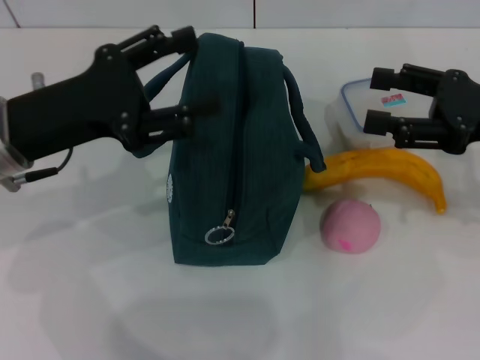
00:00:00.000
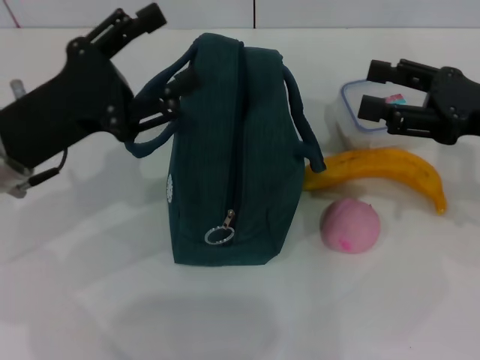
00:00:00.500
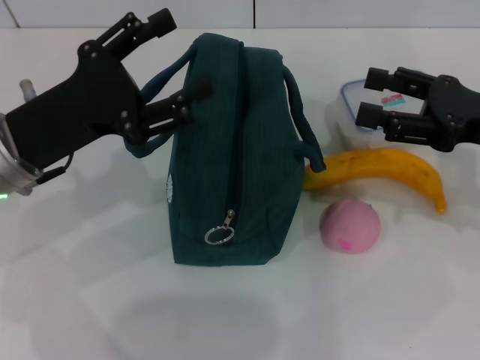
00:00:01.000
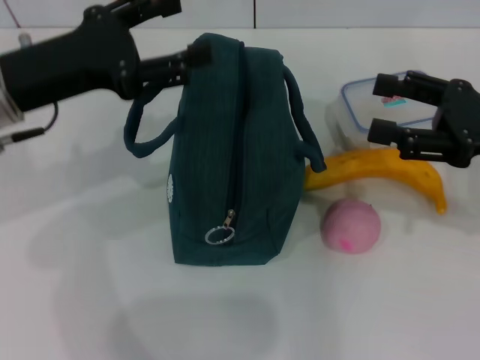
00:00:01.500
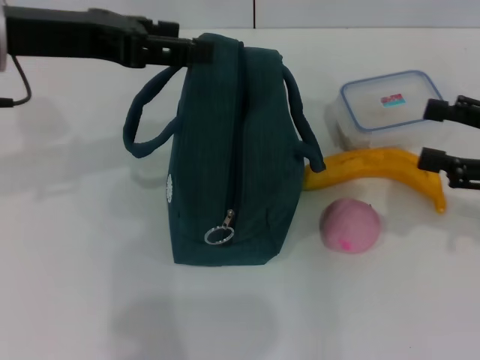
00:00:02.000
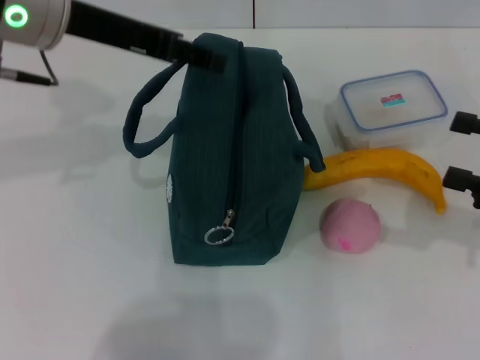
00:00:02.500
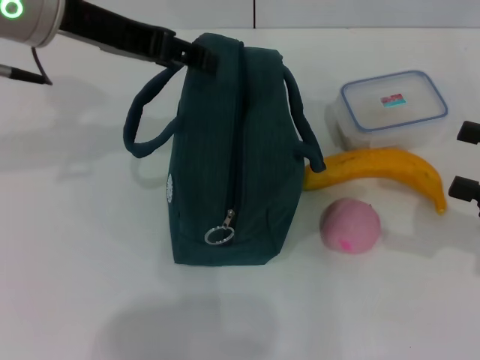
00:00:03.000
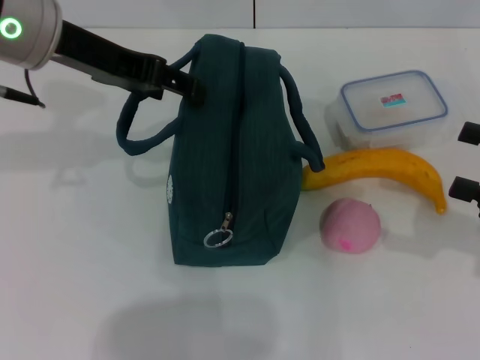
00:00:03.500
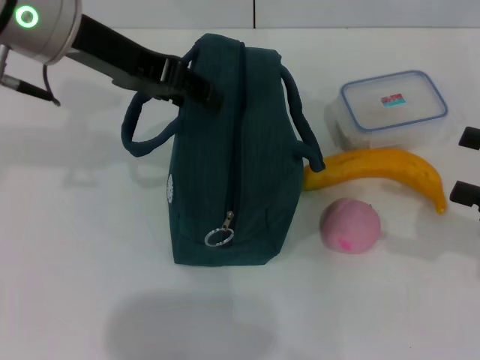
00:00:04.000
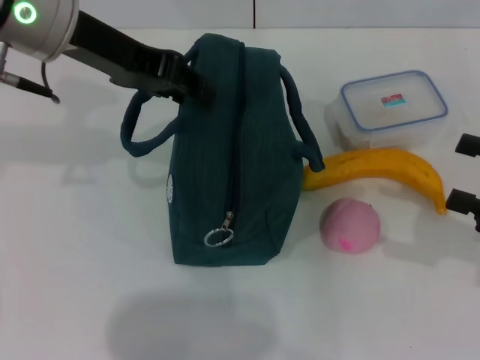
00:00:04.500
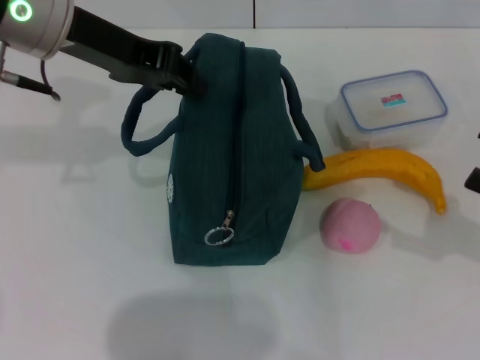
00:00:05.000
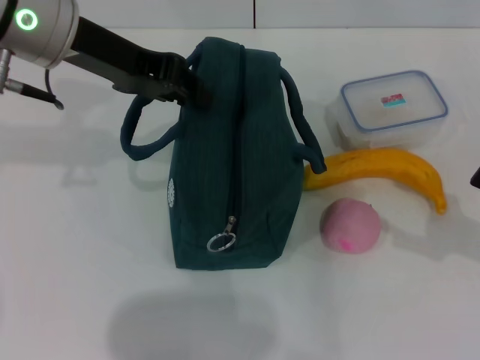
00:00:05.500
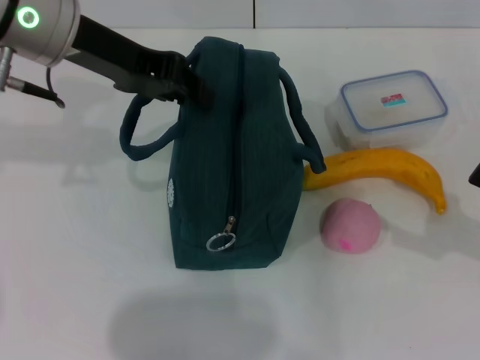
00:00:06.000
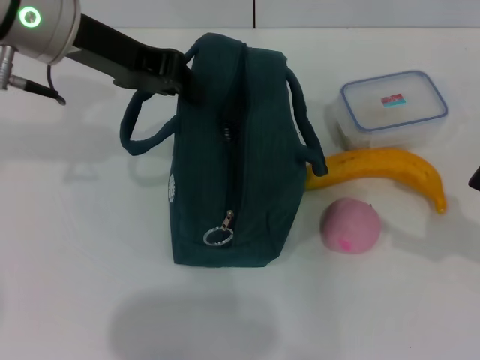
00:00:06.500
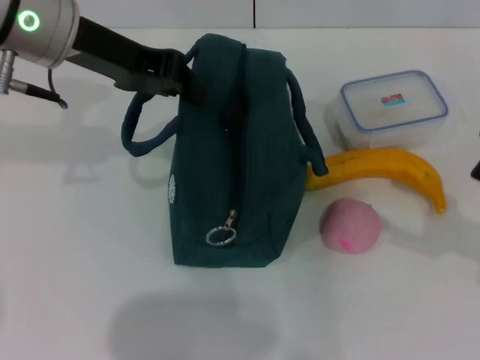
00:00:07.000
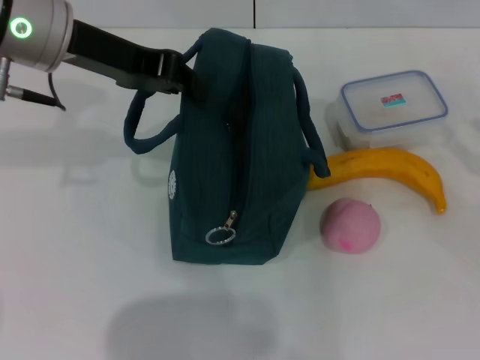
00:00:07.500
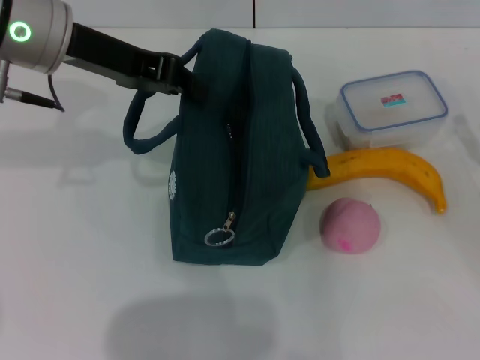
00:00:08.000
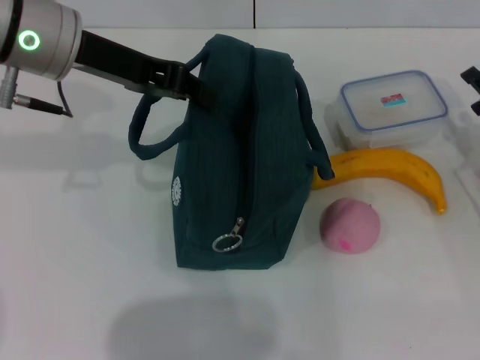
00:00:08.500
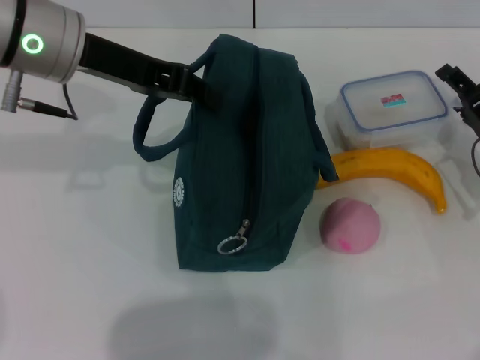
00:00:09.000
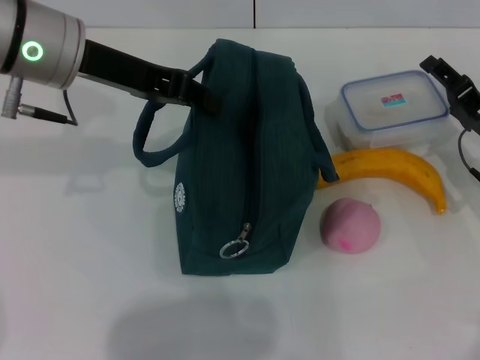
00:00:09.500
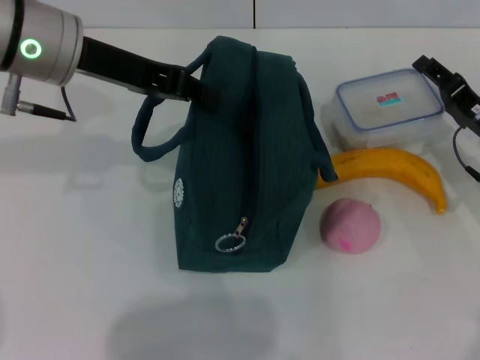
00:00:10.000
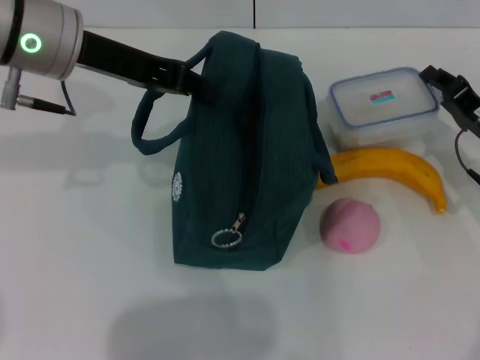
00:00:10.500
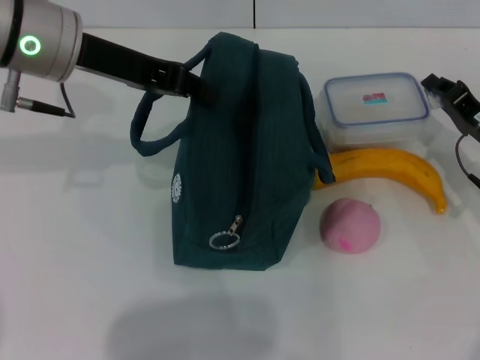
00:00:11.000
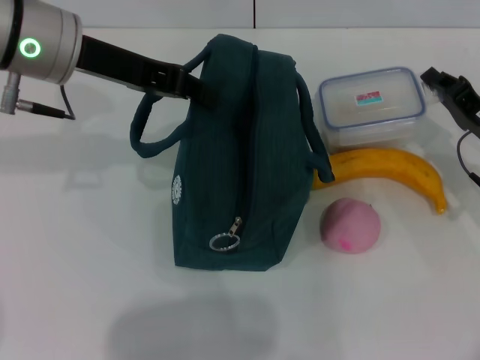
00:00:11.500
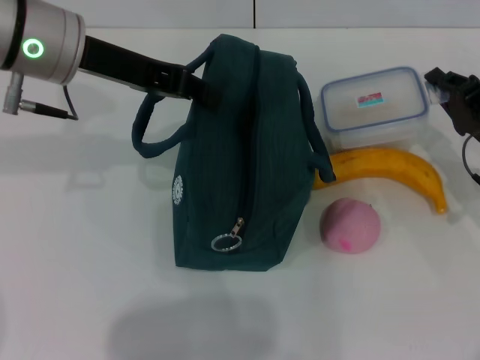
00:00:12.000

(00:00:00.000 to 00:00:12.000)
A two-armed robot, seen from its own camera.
Step, 00:00:00.000 - 00:00:07.500: Hold the lunch bag with your left hand.
Step, 00:00:08.000 - 00:00:10.500: Pick up the lunch box with your right hand.
00:00:00.000 - 00:00:02.000: The left gripper is displaced upward by about 10 cm. The right gripper moves about 5 cm.
00:00:02.000 - 00:00:04.000: The left gripper moves some 5 cm.
00:00:04.000 - 00:00:06.000: The left gripper closes up.
00:00:06.000 - 00:00:08.000: The right gripper travels downward by approximately 5 cm.
00:00:08.000 - 00:00:10.000: The right gripper travels forward and to the left by approximately 10 cm.
00:00:10.000 - 00:00:12.000: The right gripper closes its fingers.

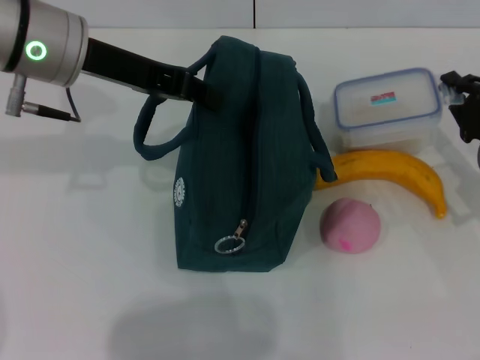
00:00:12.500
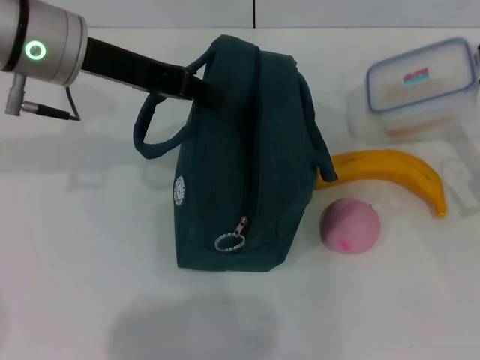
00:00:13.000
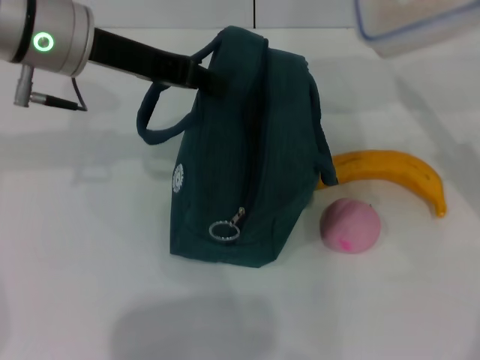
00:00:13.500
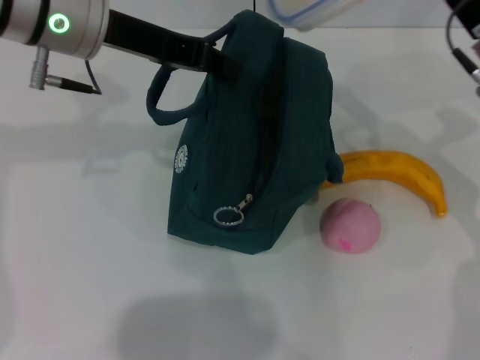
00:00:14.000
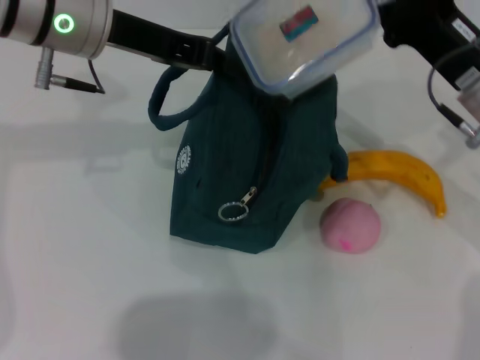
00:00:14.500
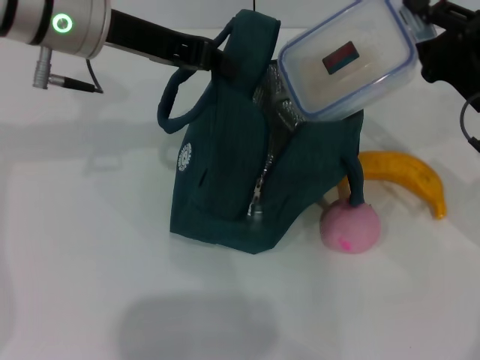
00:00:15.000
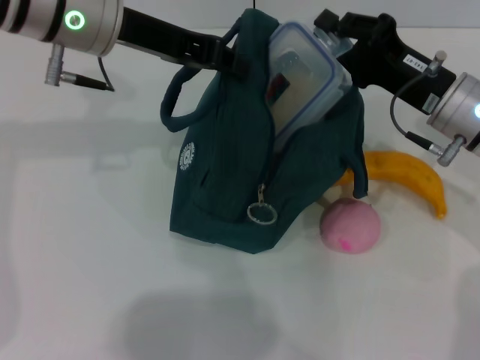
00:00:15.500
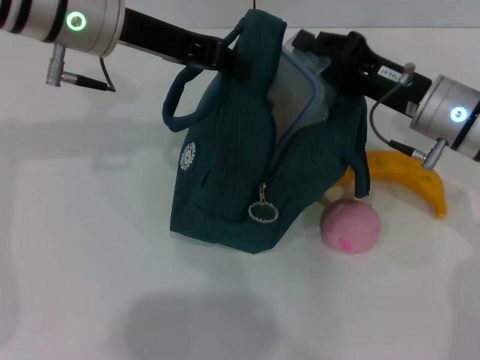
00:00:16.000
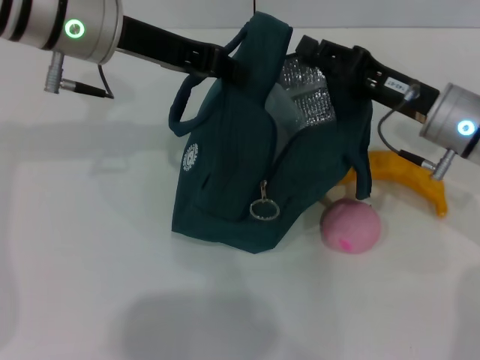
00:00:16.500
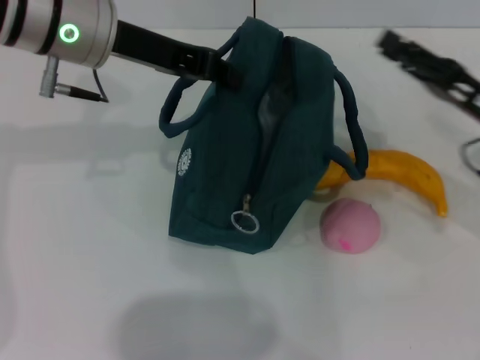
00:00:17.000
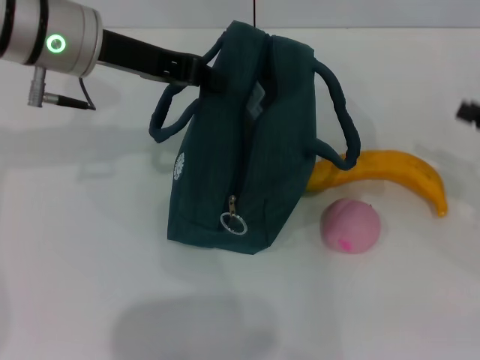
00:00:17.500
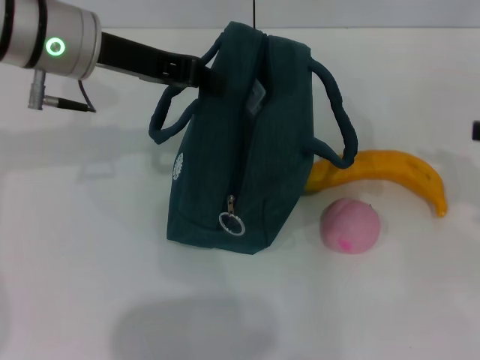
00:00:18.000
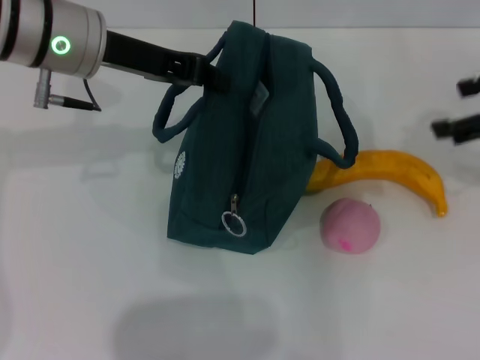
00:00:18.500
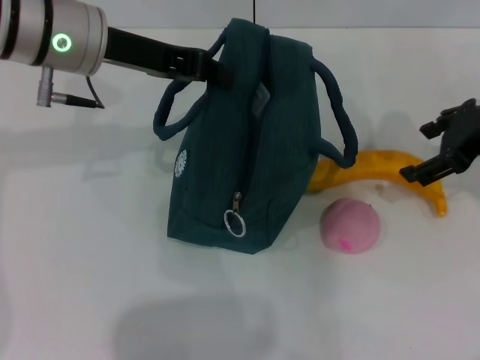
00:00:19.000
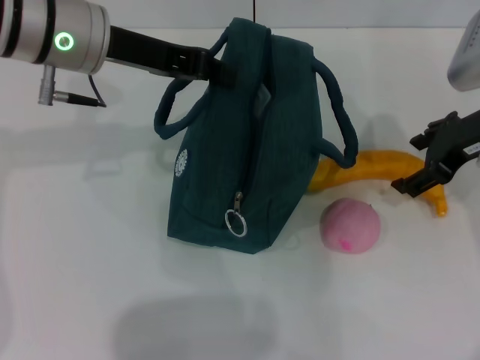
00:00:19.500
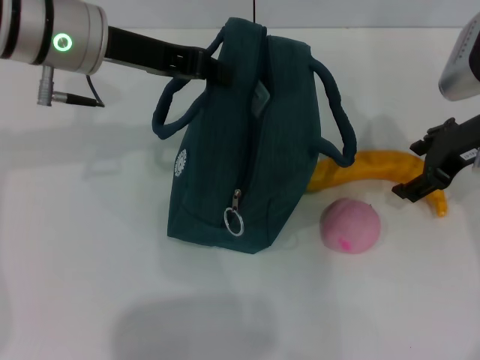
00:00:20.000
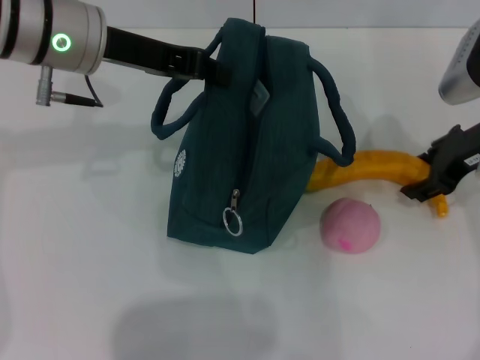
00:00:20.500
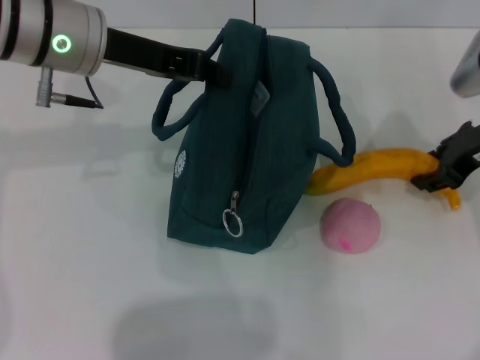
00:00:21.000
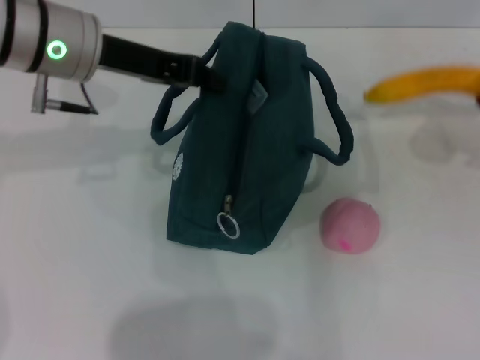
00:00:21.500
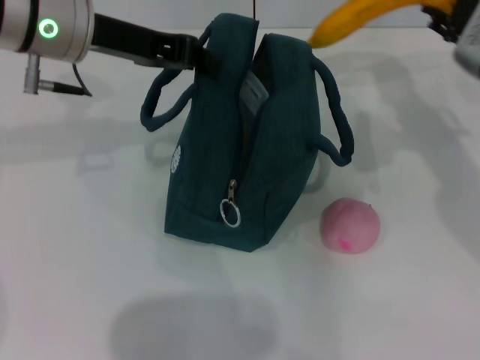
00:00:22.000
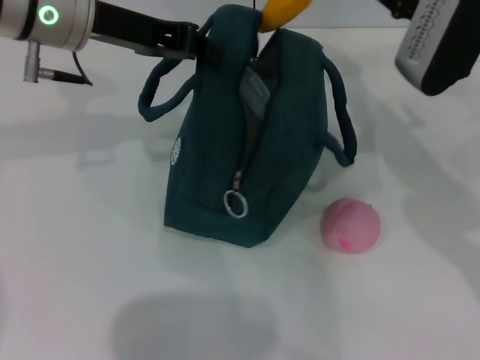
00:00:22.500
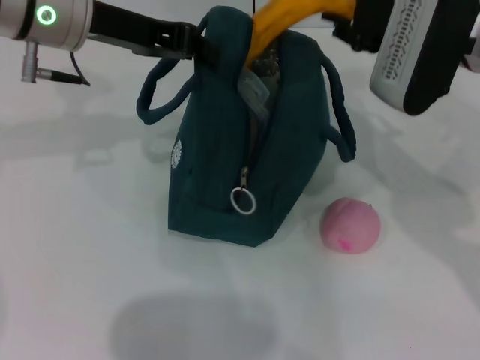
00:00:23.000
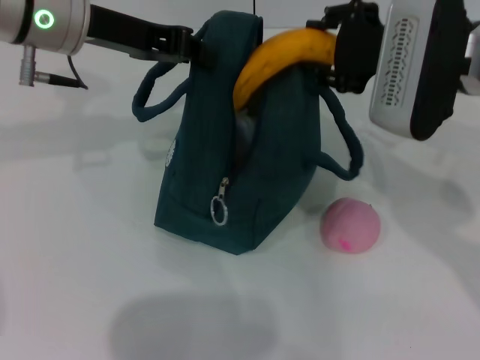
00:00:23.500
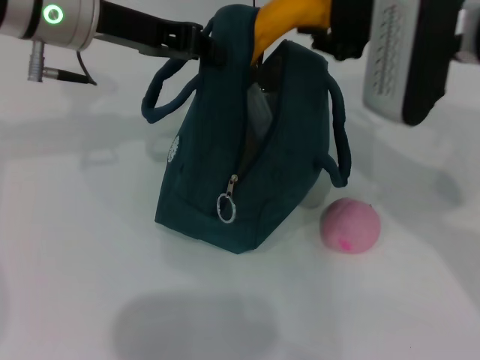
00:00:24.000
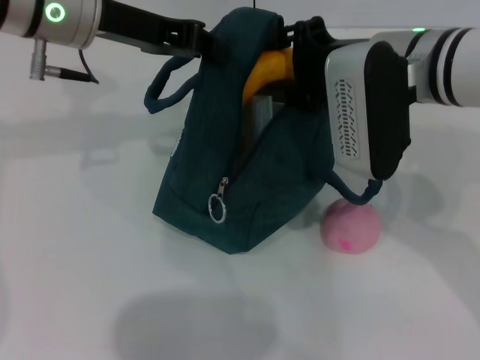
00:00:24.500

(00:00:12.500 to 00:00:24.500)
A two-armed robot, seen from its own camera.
Step, 00:00:12.500 - 00:00:16.500: Place the lunch box into the lunch bag with your right hand.
Step, 00:00:17.000 - 00:00:20.500: Take the banana with your right hand.
00:00:12.500 - 00:00:14.500: The right gripper moves upward and to the left, about 10 cm.
00:00:16.500 - 00:00:18.500: The right gripper is displaced upward and to the right by approximately 15 cm, and opens.
00:00:18.500 - 00:00:20.500: The right gripper heads downward and to the left, covering approximately 10 cm.
00:00:20.500 - 00:00:22.500: The right gripper moves upward and to the left, approximately 10 cm.
00:00:22.500 - 00:00:24.500: The right gripper moves to the left, about 5 cm.

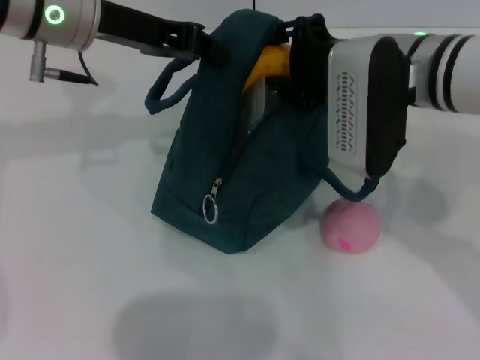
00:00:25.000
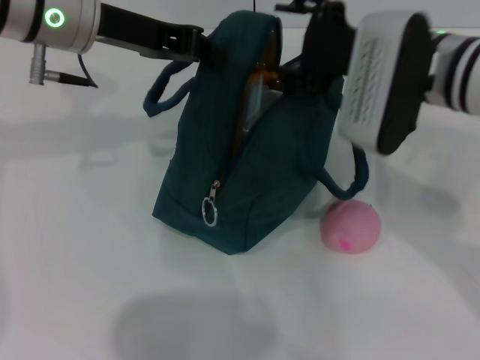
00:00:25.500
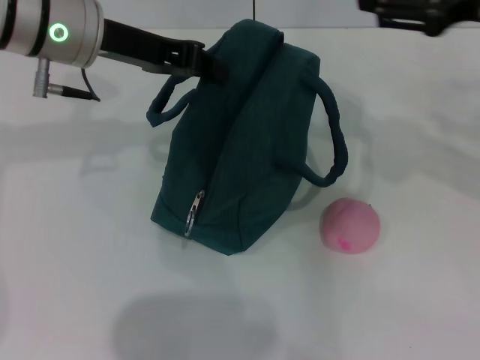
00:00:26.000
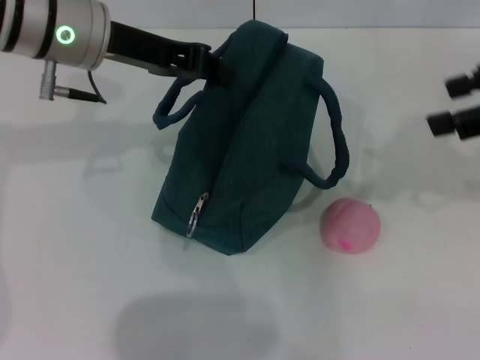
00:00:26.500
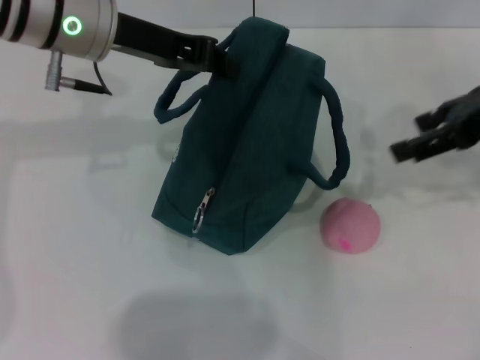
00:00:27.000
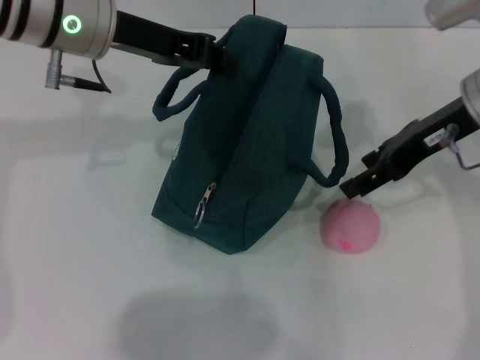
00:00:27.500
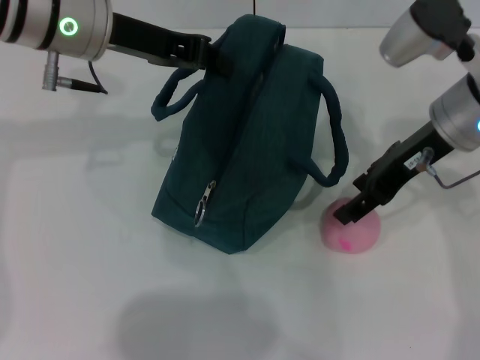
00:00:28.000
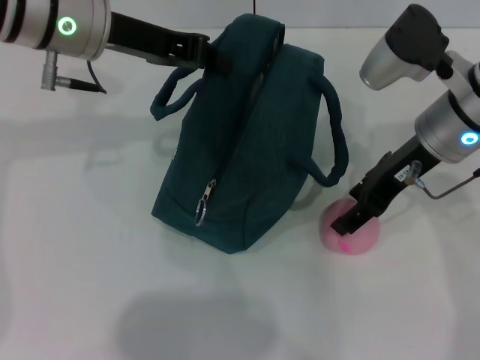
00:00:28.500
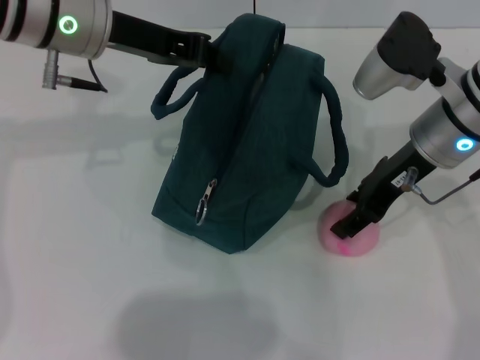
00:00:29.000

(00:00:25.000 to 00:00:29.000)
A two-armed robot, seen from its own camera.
00:00:25.000 - 00:00:27.000: The right gripper goes some 15 cm to the right and upward.
00:00:27.000 - 00:00:29.000: The right gripper heads to the left and downward, covering some 15 cm.
